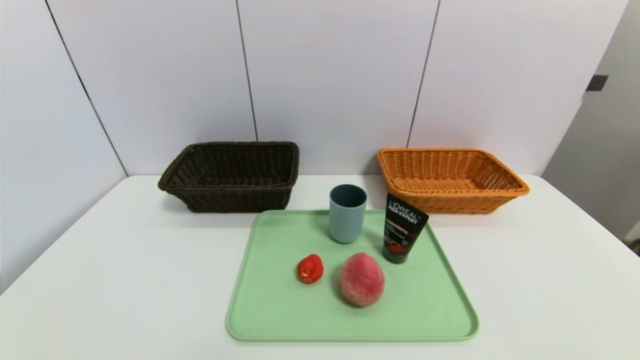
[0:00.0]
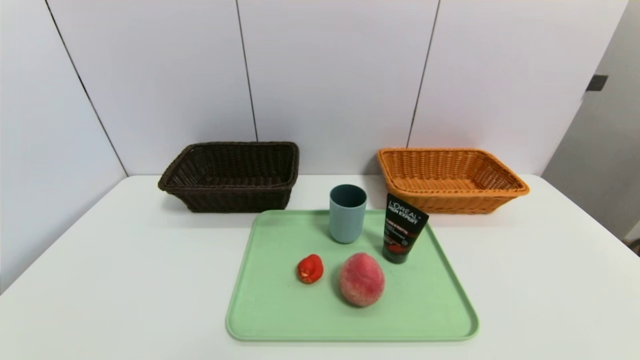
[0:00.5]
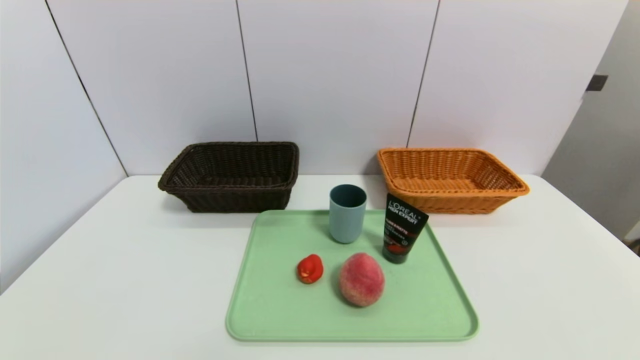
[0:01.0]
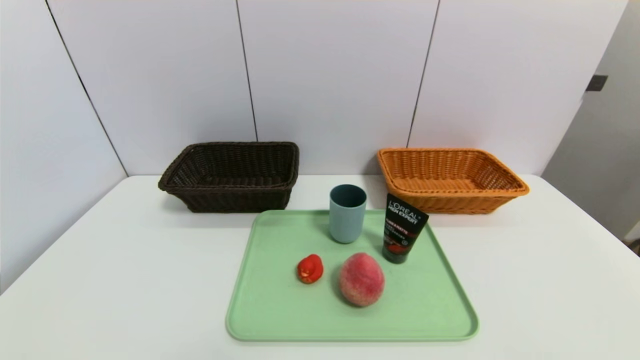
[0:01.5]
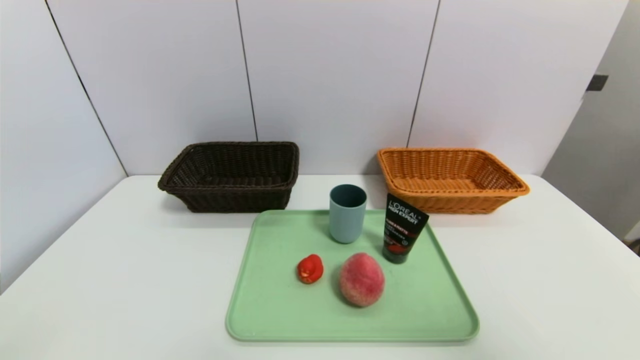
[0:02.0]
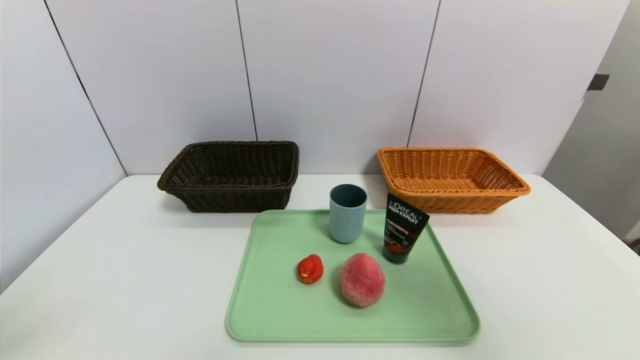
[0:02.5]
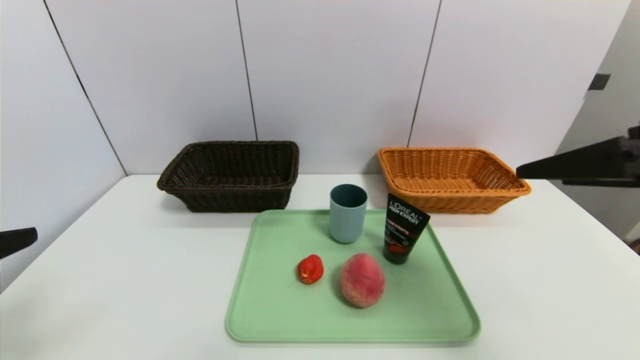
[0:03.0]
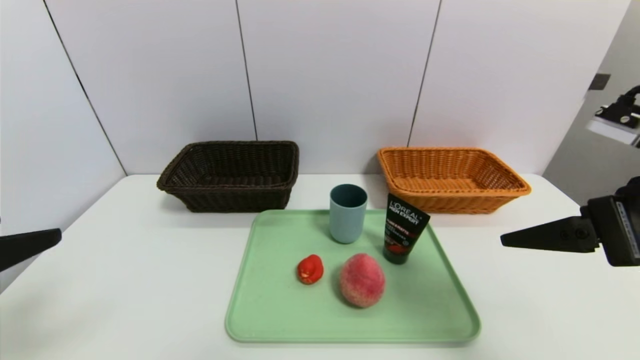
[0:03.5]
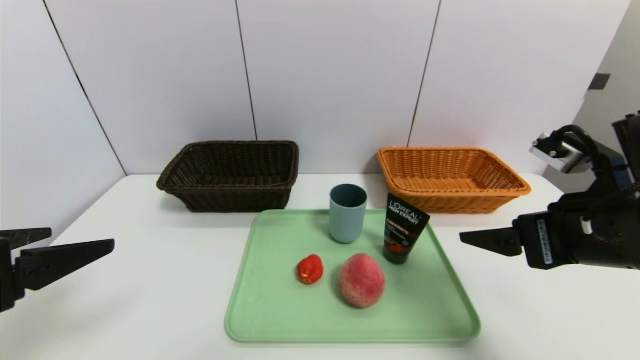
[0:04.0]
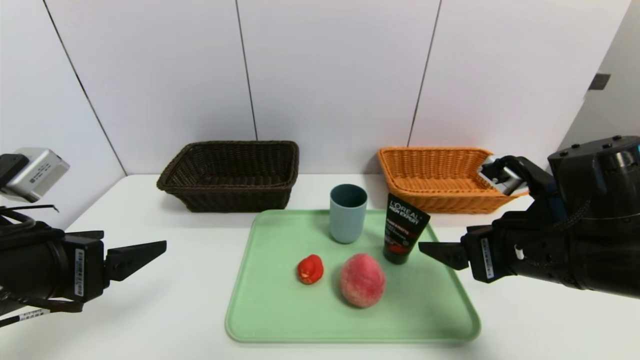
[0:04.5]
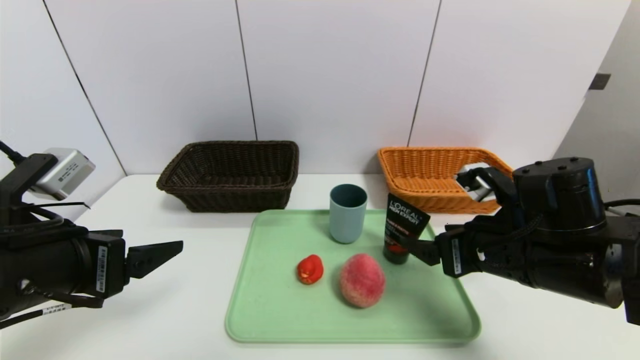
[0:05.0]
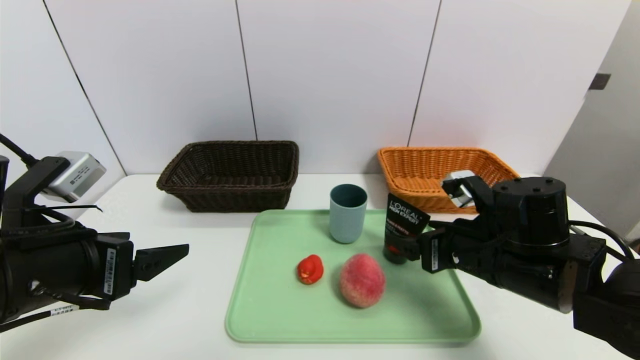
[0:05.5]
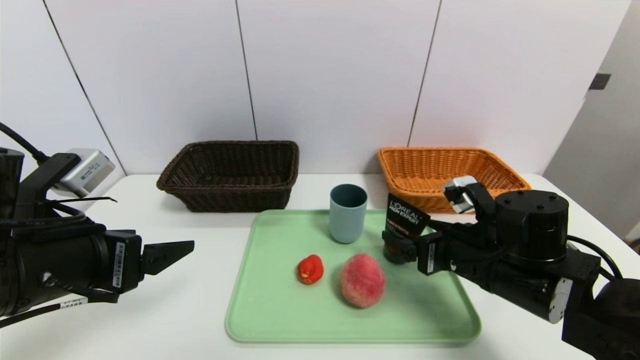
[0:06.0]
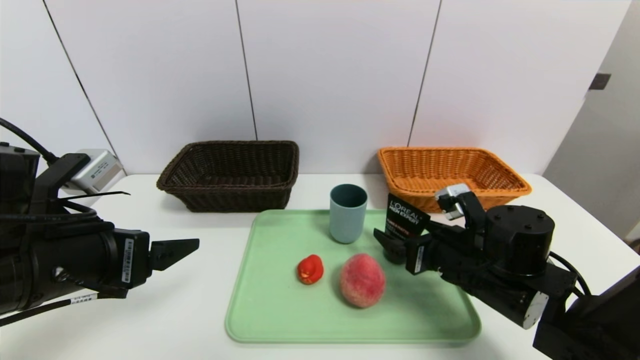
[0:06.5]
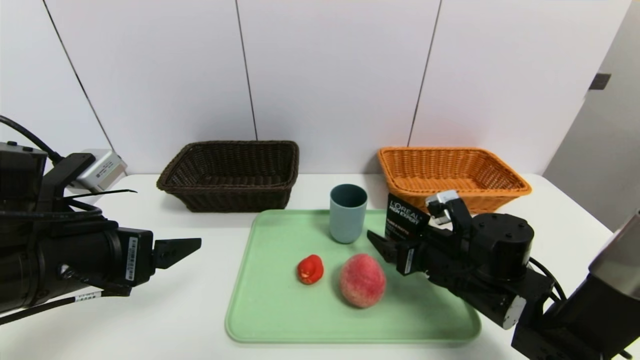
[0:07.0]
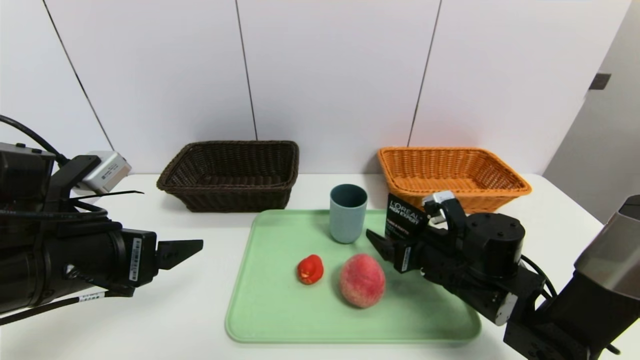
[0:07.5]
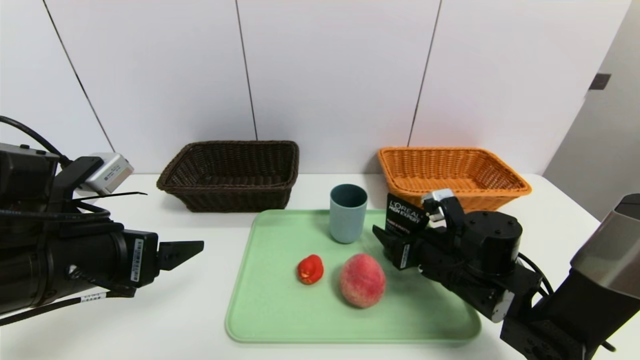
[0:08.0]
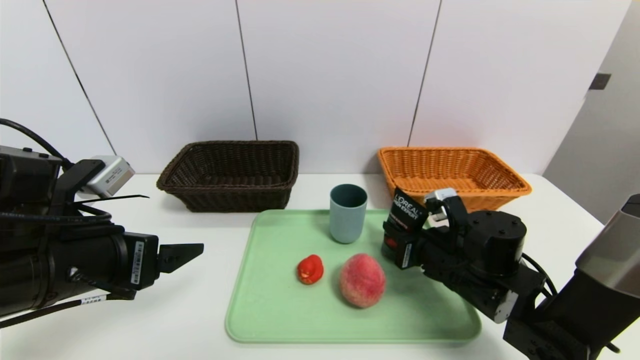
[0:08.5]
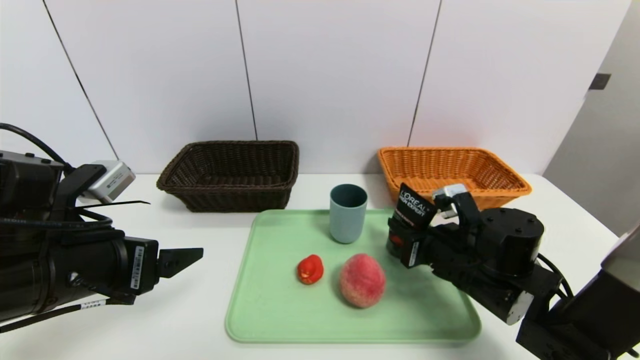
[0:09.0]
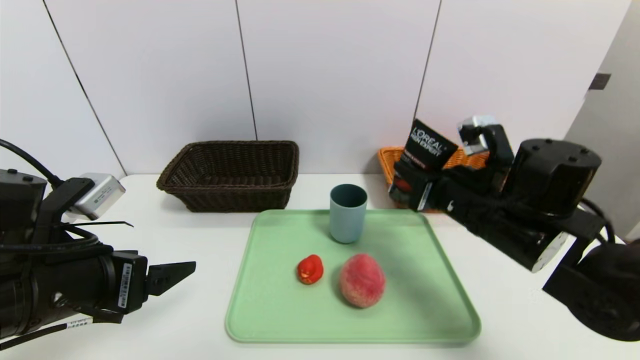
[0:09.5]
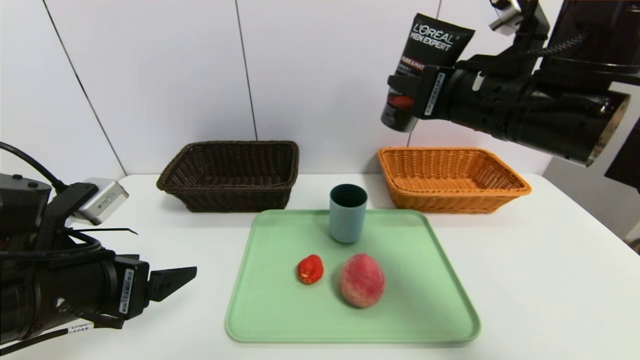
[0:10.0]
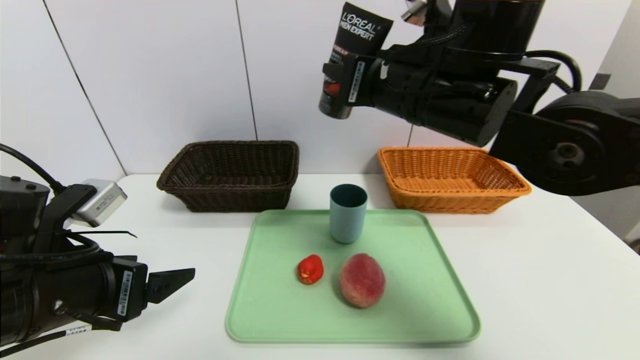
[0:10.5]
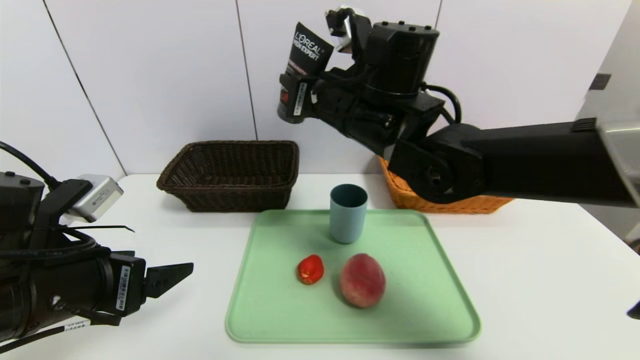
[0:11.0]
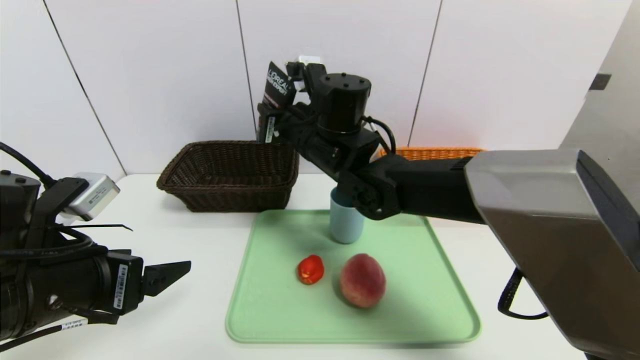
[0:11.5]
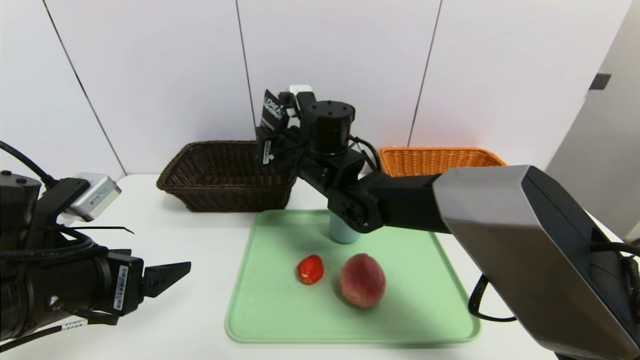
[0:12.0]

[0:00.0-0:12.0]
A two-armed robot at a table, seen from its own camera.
Task of the whole recording: place the food in the right basket with the right gripper, and place the non food items in the left basket with the left gripper.
0:00.0 to 0:02.0: The right gripper shifts roughly 30 cm upward.
0:02.0 to 0:04.0: The right gripper travels forward, downward and to the left by some 25 cm, while the left gripper travels forward and downward by some 15 cm.
0:04.0 to 0:06.0: The right gripper goes approximately 15 cm downward, forward and to the left, while the left gripper moves forward, approximately 5 cm.
0:06.0 to 0:08.0: The right gripper moves approximately 5 cm, and closes.
0:08.0 to 0:10.0: The right gripper goes some 25 cm upward, and closes up.
0:10.0 to 0:12.0: The right gripper goes about 25 cm to the left, forward and downward.

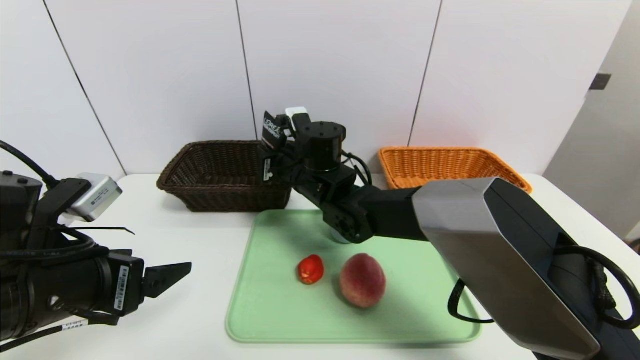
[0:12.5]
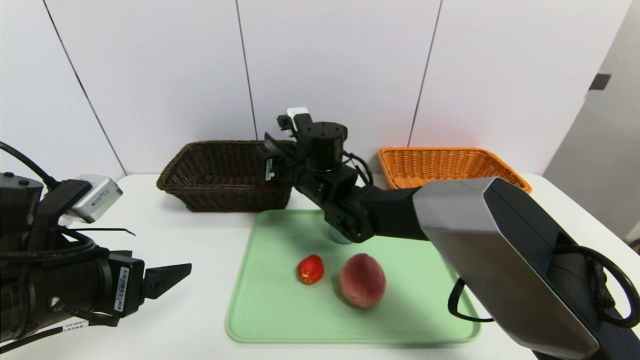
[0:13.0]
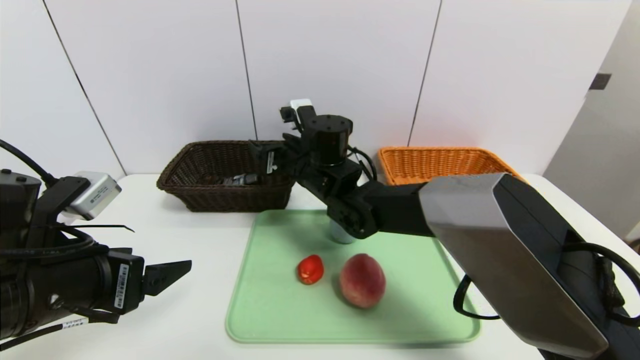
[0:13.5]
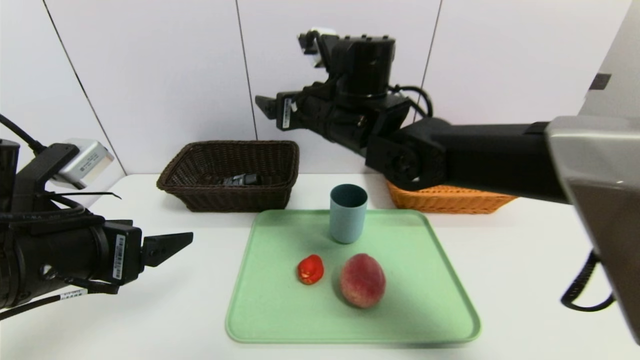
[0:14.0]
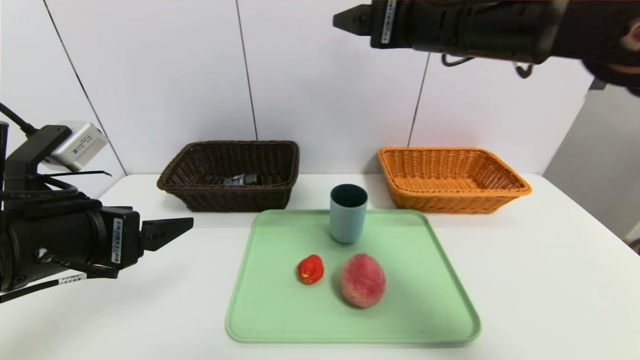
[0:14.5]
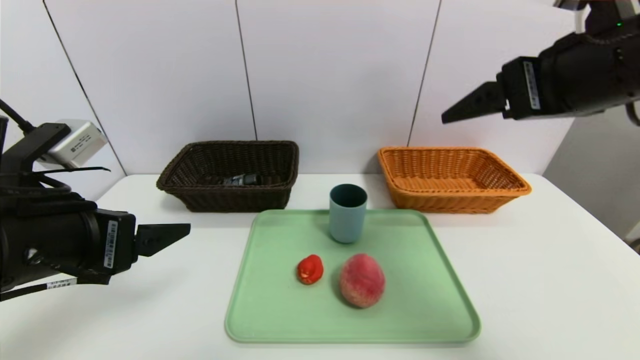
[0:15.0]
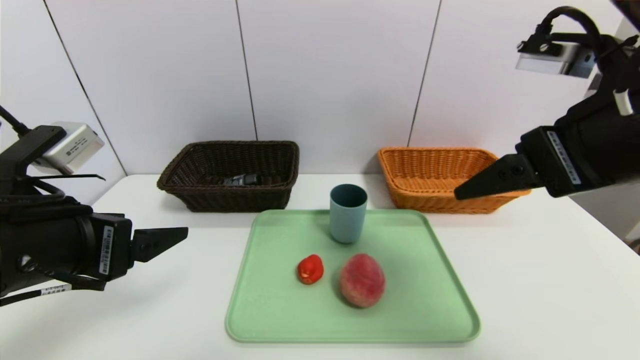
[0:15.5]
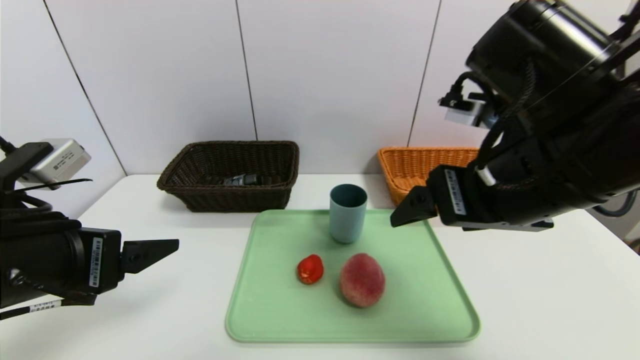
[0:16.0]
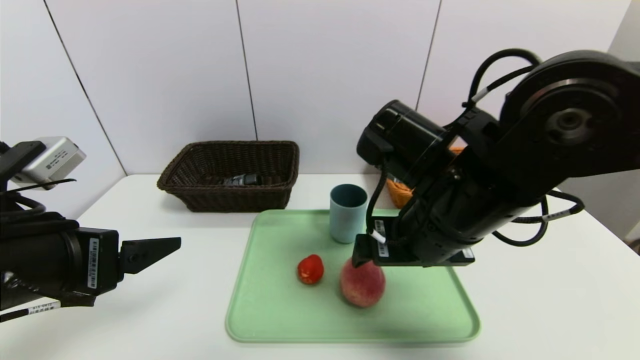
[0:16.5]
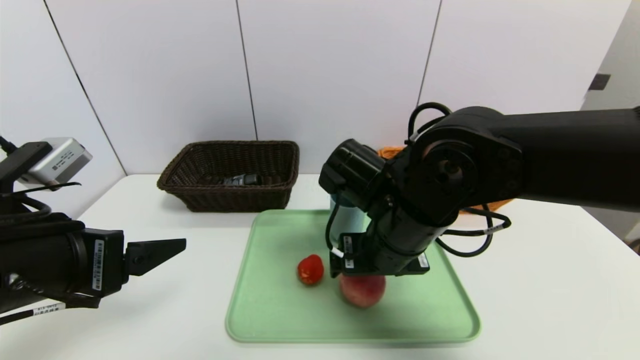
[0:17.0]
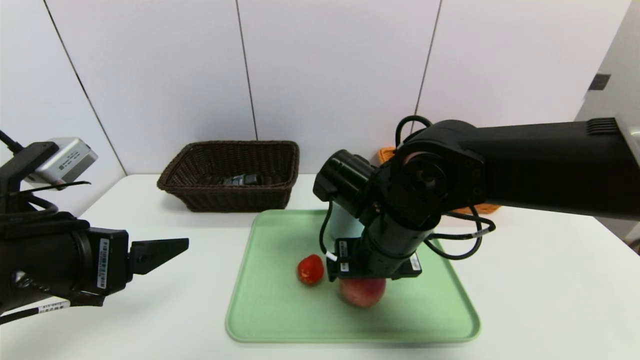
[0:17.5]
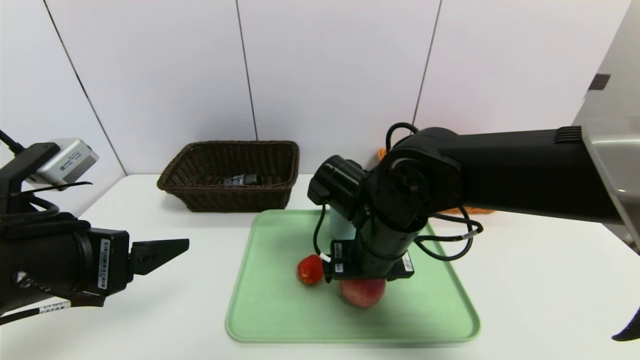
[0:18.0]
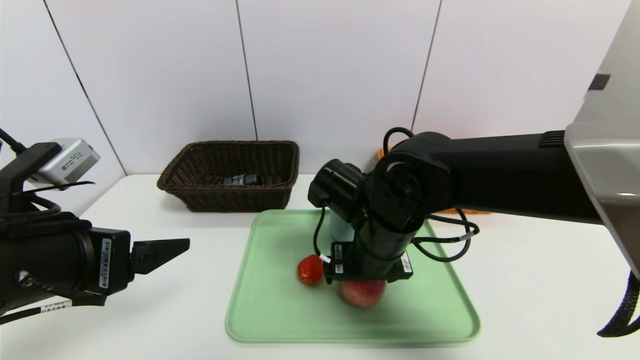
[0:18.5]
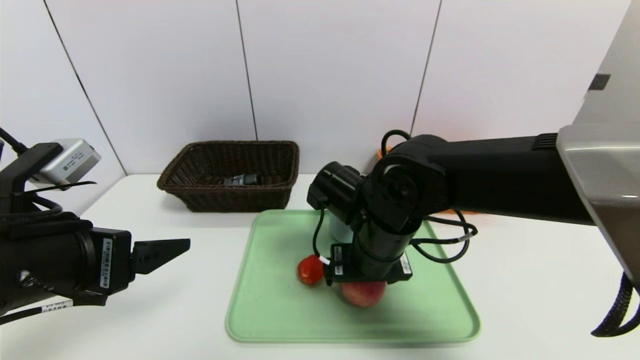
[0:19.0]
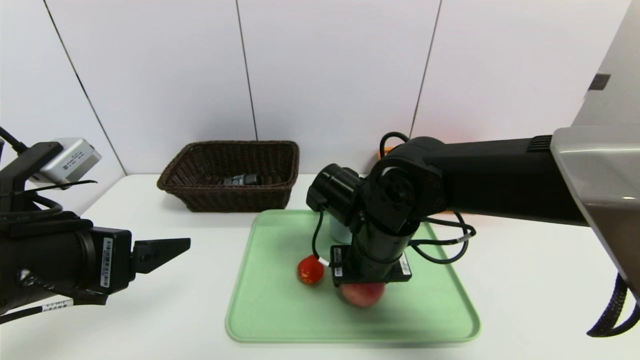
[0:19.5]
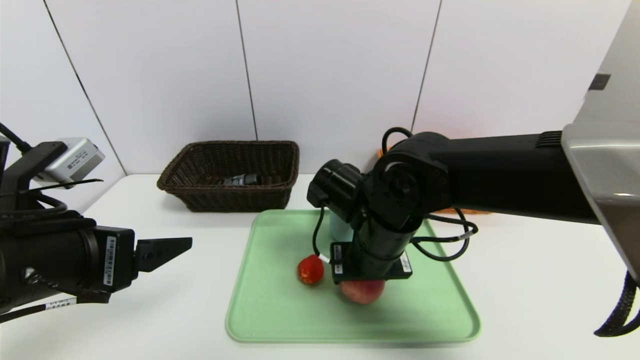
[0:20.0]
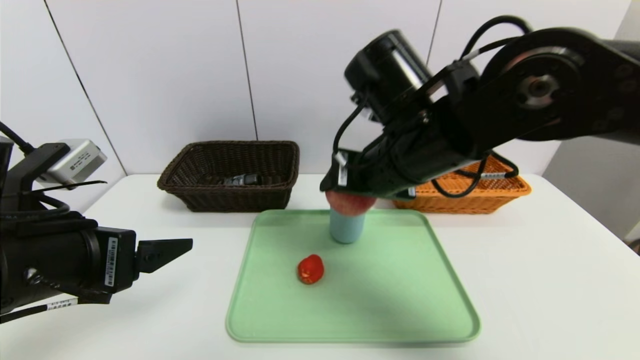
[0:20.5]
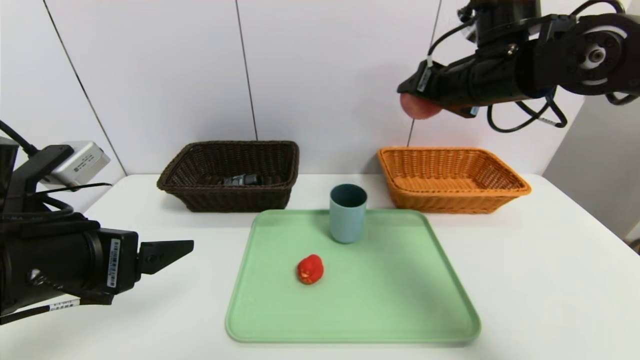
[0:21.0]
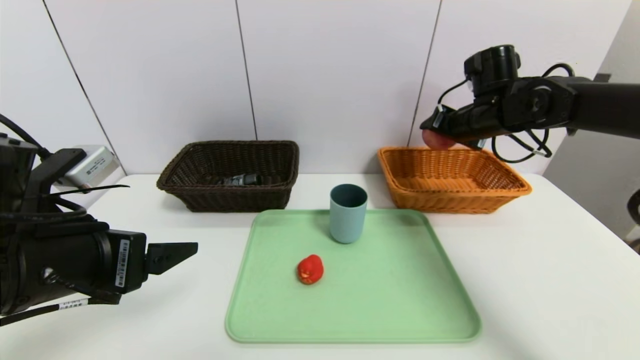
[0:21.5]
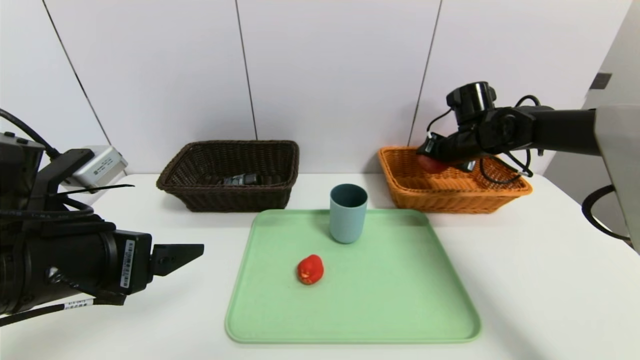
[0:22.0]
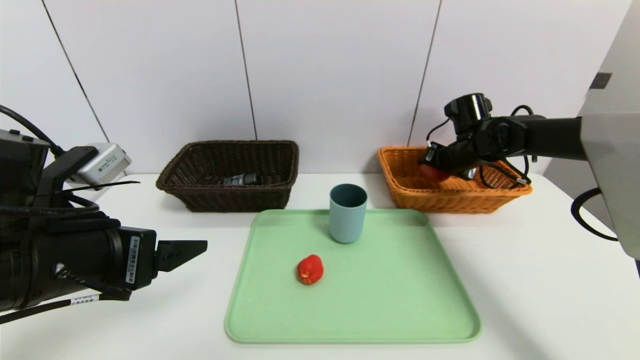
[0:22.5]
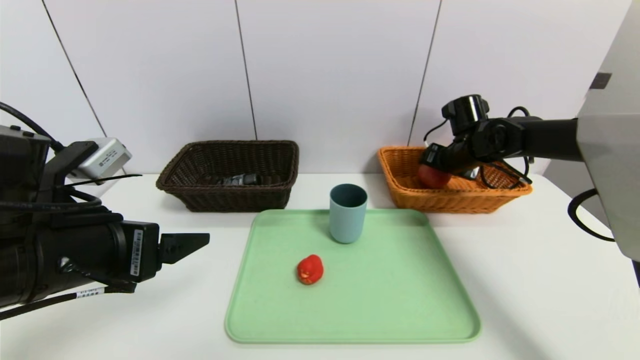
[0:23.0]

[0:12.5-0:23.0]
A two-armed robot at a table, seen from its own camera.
Task of the whole recording: place the food in the right basket with the right gripper, and place the non food items in the left basket with the left gripper.
0:12.5 to 0:14.5: The right gripper goes approximately 30 cm upward, to the right and backward, and opens.
0:14.5 to 0:16.5: The right gripper is displaced downward and backward by about 15 cm.
0:16.5 to 0:19.0: The right gripper heads downward, covering some 5 cm.
0:19.0 to 0:21.0: The right gripper travels upward, to the right and forward by approximately 25 cm, and closes up.
0:21.0 to 0:23.0: The right gripper goes about 20 cm downward, forward and to the right.
